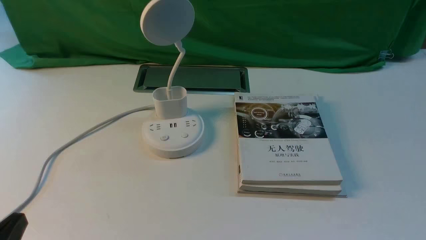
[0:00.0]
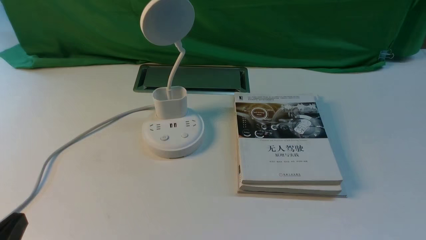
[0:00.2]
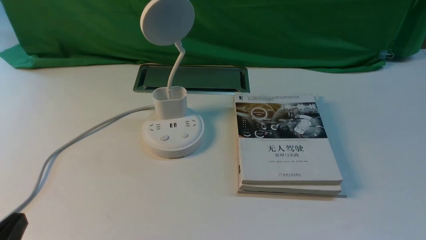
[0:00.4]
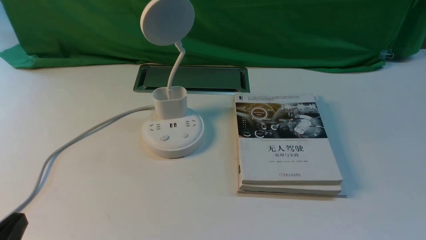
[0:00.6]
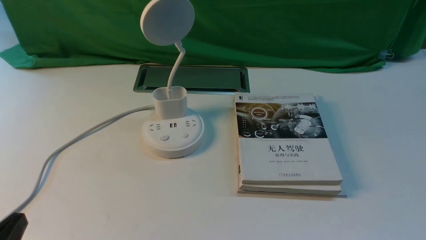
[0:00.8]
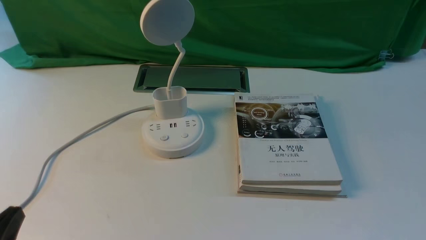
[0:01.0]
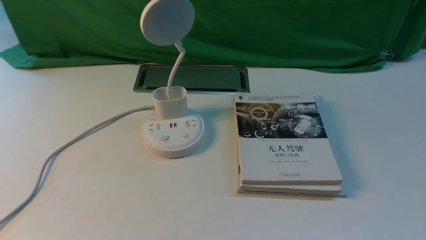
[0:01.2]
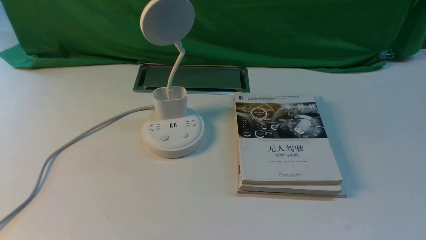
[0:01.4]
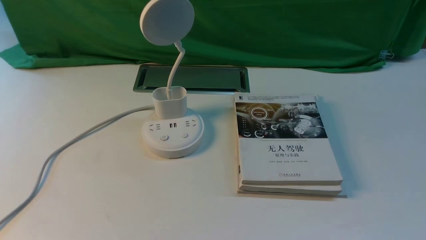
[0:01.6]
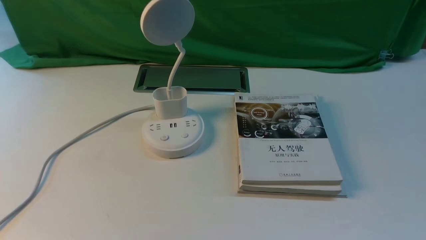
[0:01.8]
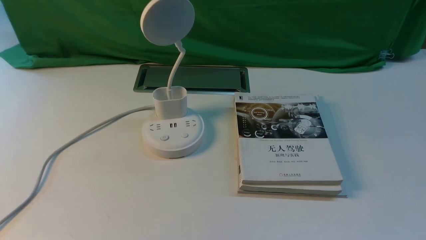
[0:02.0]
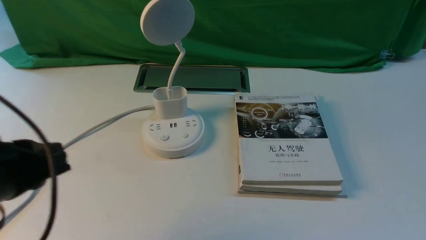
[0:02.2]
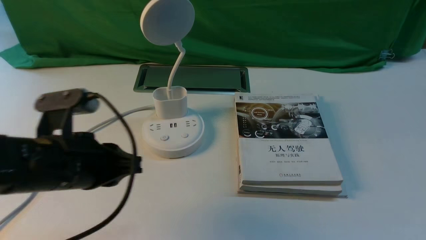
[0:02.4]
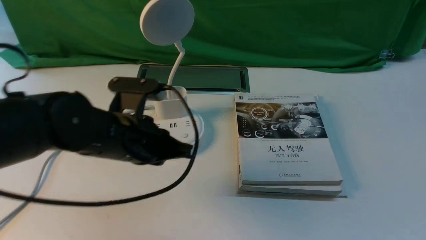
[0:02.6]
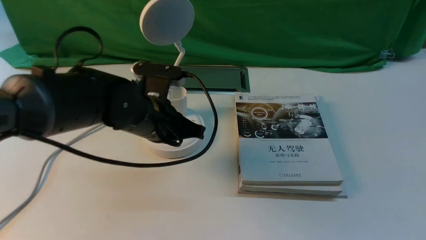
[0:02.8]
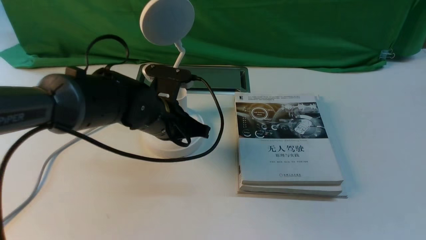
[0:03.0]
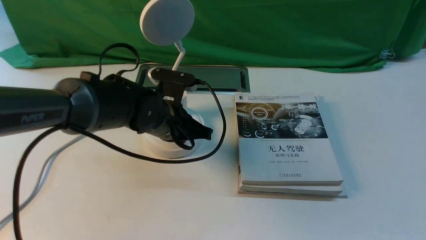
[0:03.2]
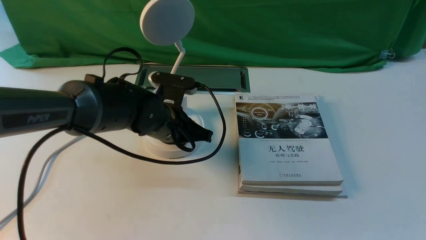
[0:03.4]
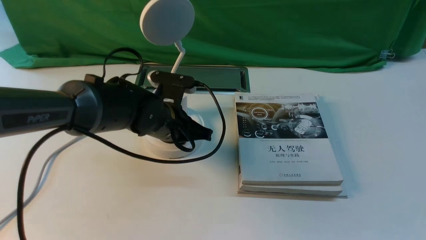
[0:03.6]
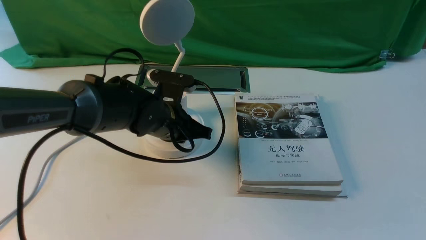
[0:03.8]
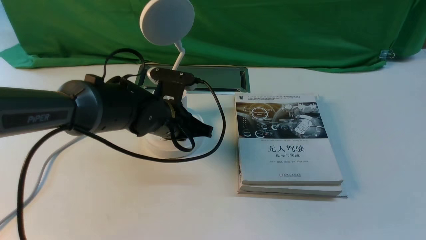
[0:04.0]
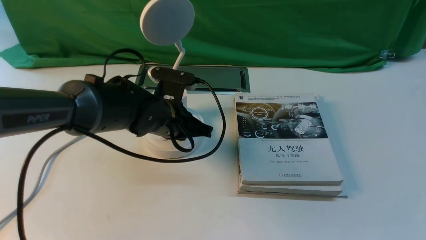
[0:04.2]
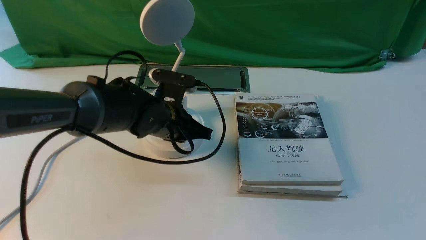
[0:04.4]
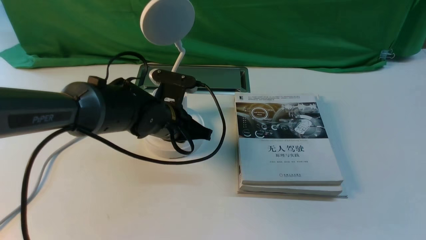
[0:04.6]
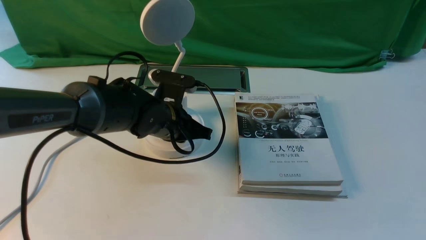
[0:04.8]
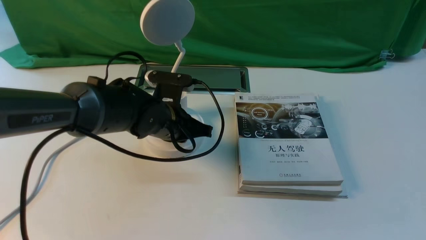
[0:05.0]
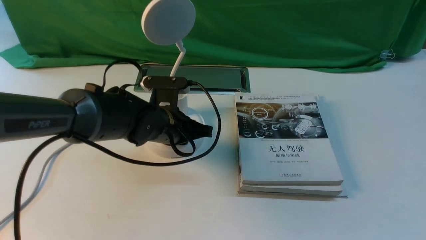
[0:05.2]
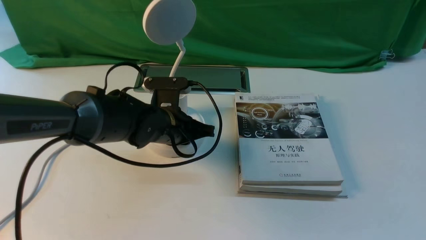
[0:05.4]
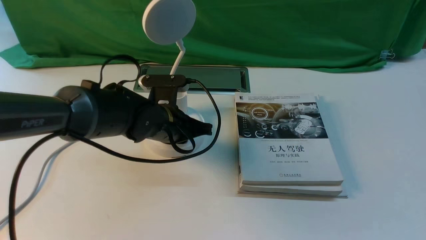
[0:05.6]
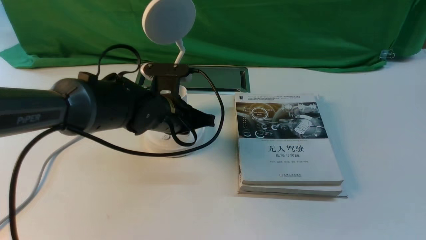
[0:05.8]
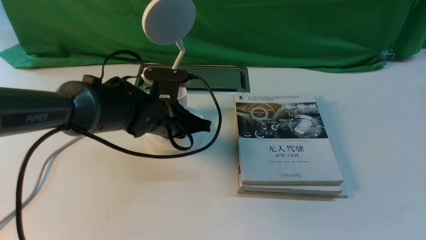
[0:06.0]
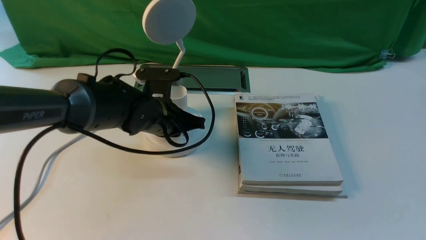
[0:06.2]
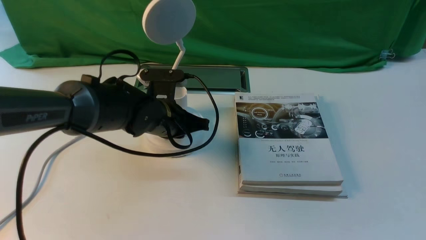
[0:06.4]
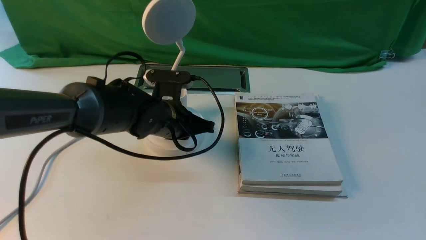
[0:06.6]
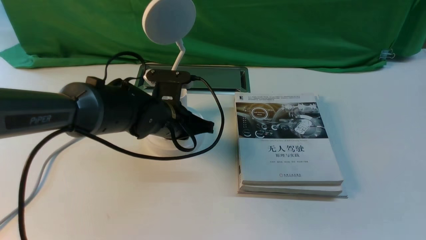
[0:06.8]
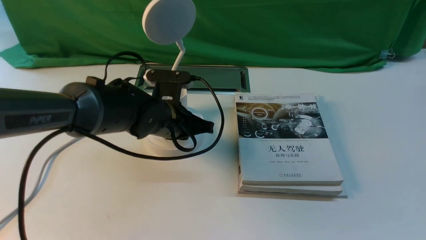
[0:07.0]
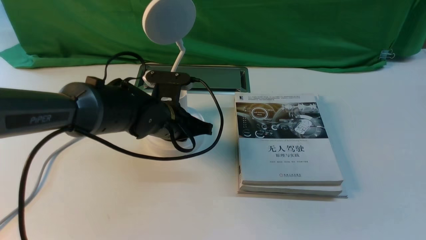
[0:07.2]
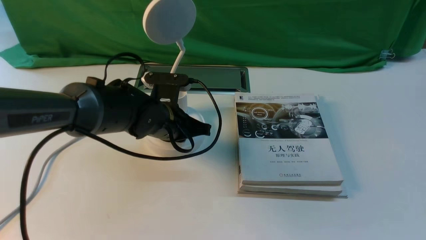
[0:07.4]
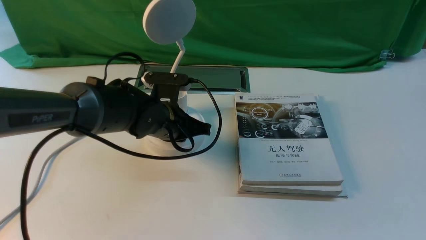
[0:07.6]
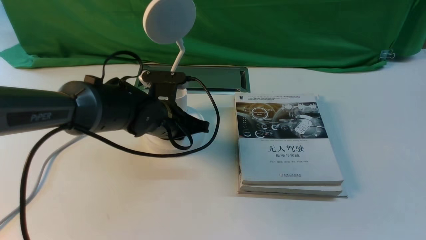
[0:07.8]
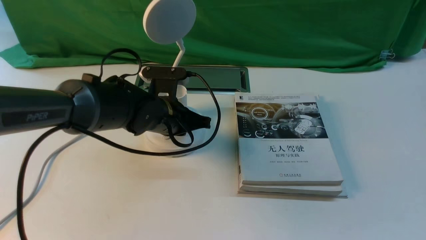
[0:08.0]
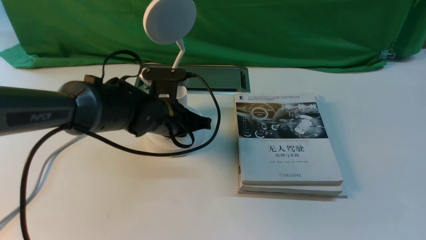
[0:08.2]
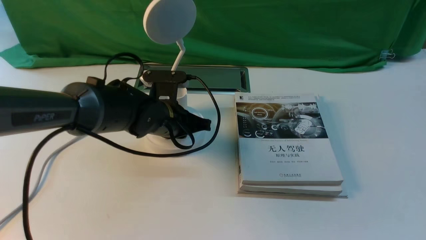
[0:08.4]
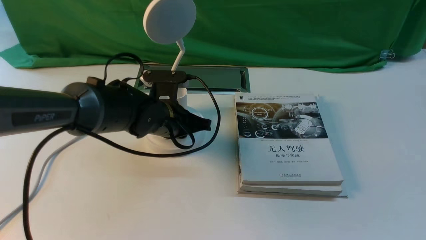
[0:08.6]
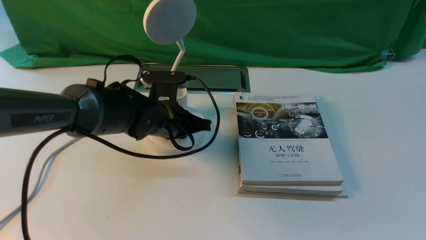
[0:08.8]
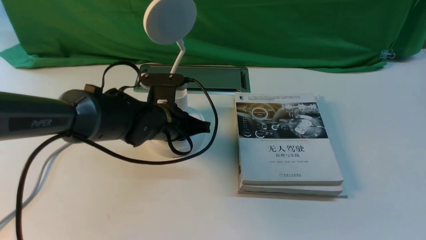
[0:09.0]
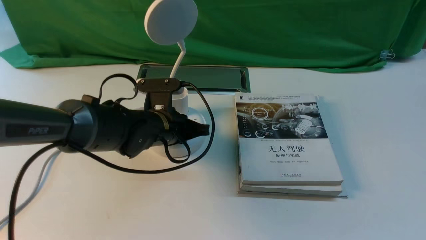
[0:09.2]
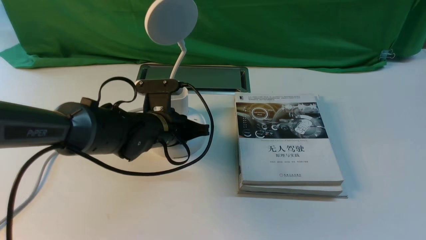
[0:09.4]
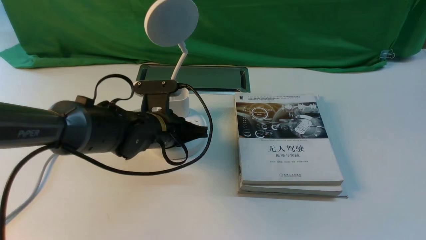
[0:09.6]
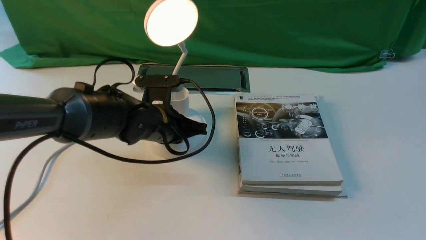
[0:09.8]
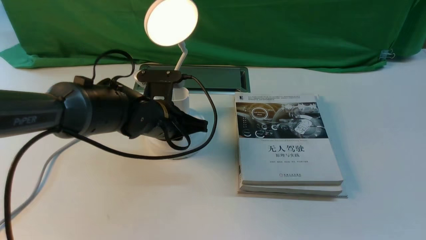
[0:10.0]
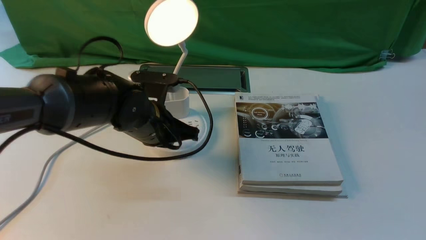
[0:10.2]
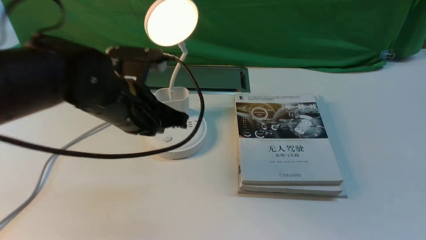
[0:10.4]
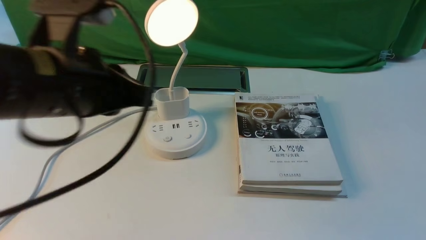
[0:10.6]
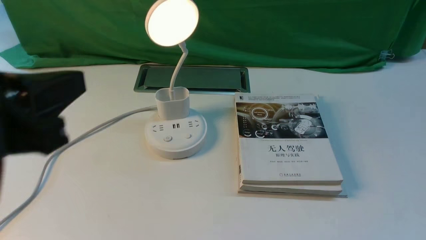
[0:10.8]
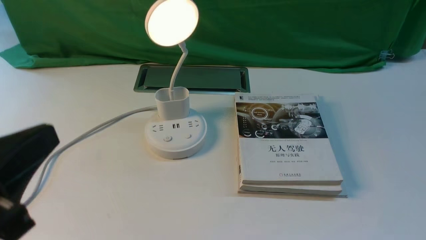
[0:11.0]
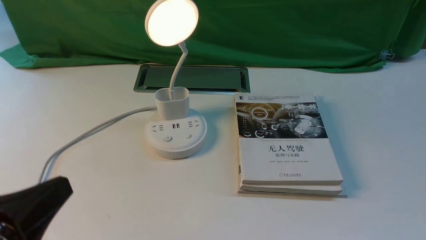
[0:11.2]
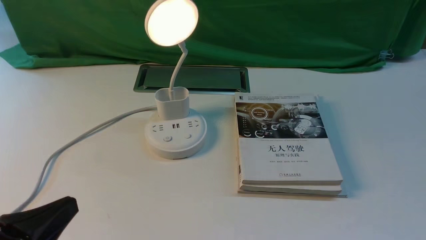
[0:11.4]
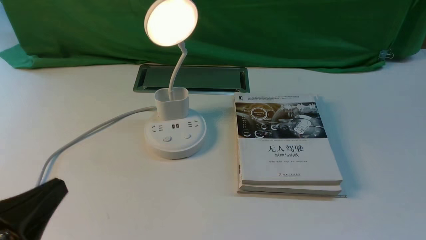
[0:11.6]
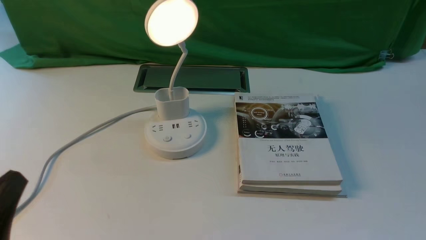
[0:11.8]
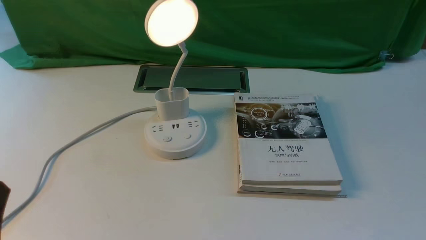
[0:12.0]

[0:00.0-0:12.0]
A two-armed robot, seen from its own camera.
Step, 0:00.0 to 0:10.4: use the left arm to press the button switch on the lamp holder.
0:00.0 to 0:01.6: The left gripper is displaced upward by some 10 cm.
0:01.6 to 0:03.0: The left gripper shifts roughly 35 cm forward and to the right, and closes up.
0:03.0 to 0:06.0: There are only small adjustments of the grippers.
0:06.0 to 0:07.6: The two grippers keep their place.
0:07.6 to 0:09.0: There are only small adjustments of the grippers.
0:09.0 to 0:10.4: The left gripper is displaced upward and backward by roughly 15 cm.
0:10.4 to 0:12.0: The left gripper is displaced backward and to the left by roughly 25 cm.

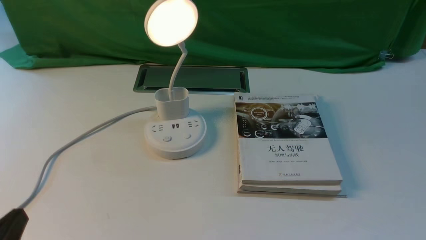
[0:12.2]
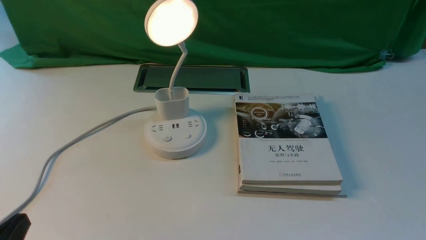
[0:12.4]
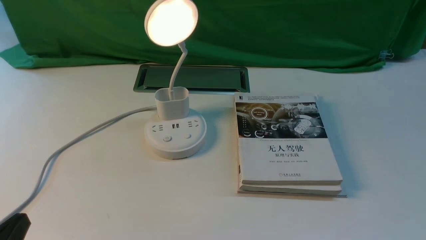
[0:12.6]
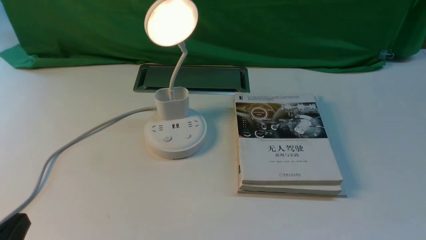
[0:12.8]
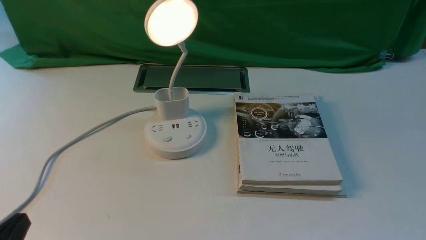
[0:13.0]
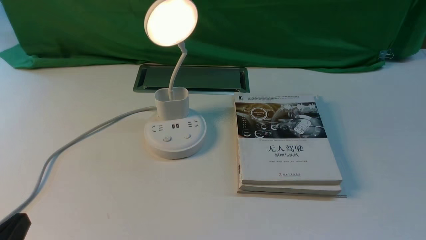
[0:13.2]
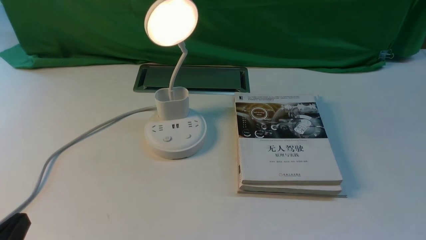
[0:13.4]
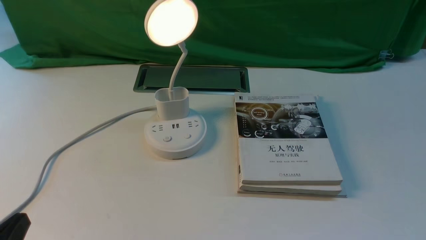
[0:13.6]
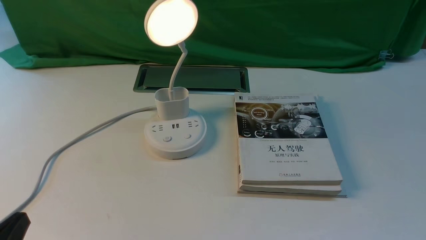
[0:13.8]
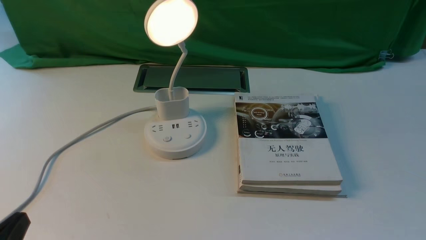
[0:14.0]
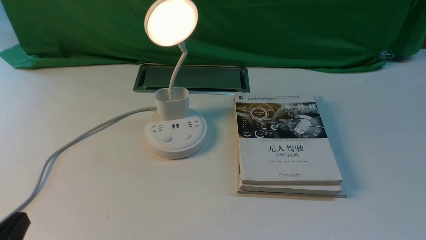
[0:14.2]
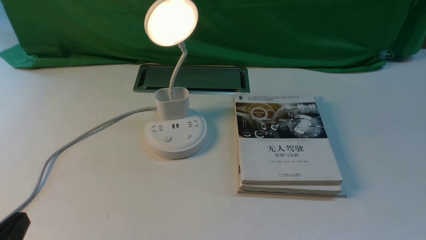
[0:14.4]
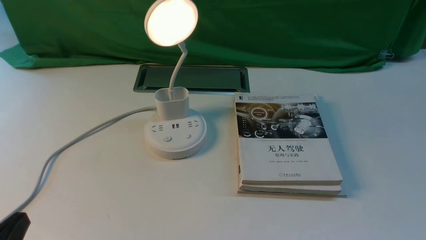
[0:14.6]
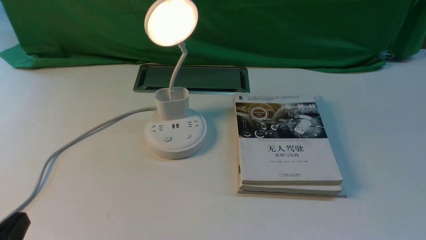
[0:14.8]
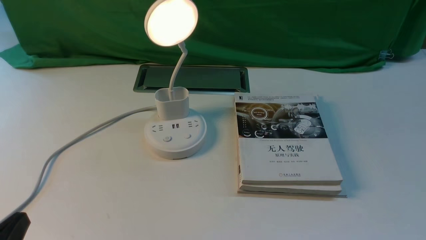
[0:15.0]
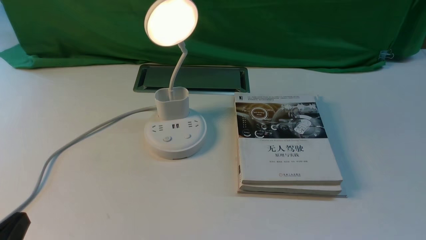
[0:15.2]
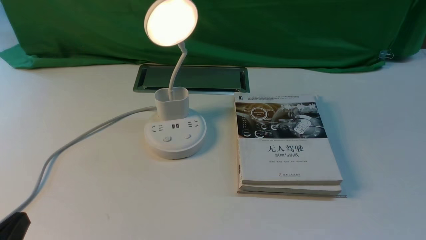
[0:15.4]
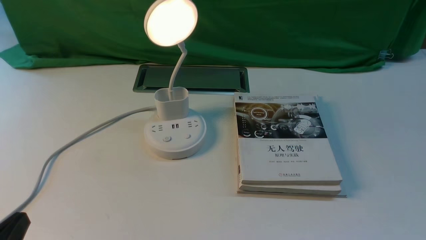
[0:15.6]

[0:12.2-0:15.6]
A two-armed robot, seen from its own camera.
0:12.2 to 0:15.6: Both grippers stay put.

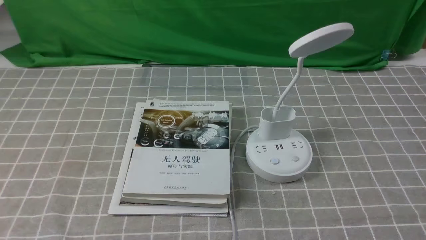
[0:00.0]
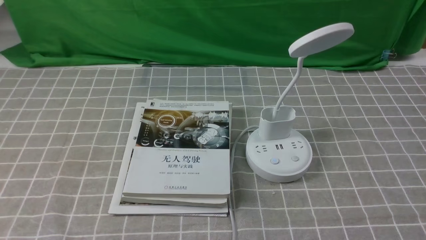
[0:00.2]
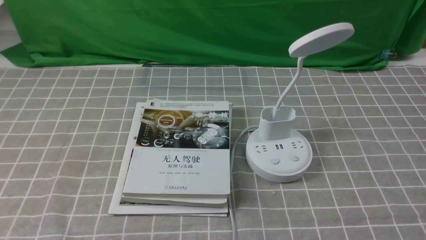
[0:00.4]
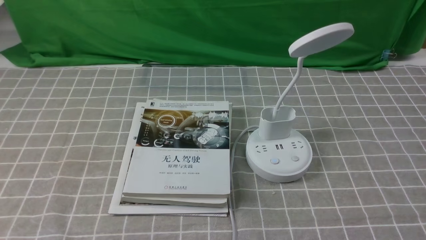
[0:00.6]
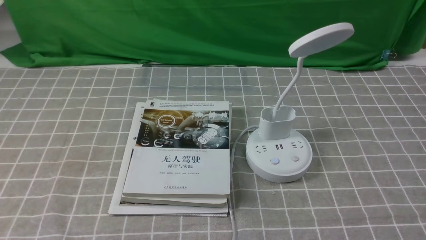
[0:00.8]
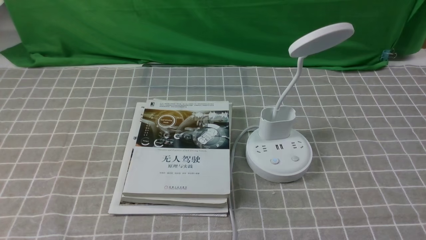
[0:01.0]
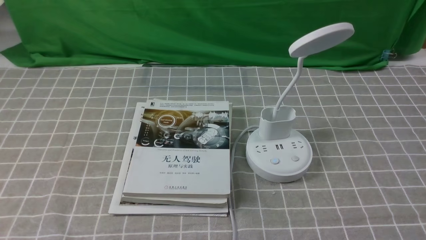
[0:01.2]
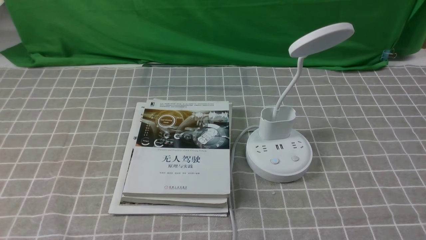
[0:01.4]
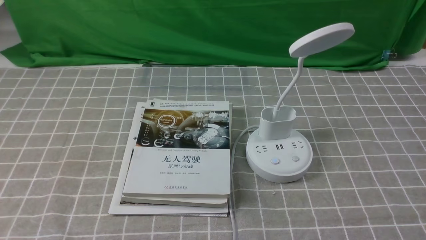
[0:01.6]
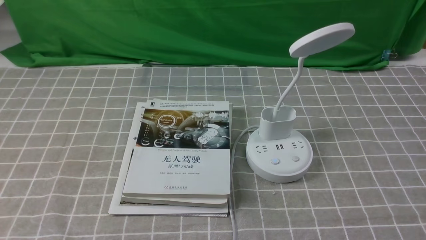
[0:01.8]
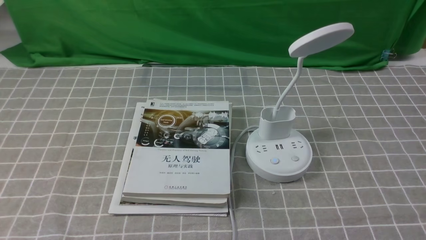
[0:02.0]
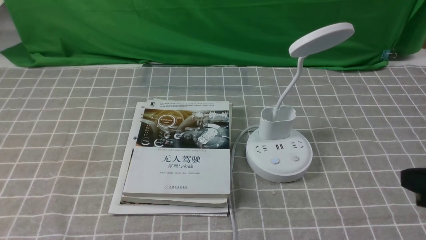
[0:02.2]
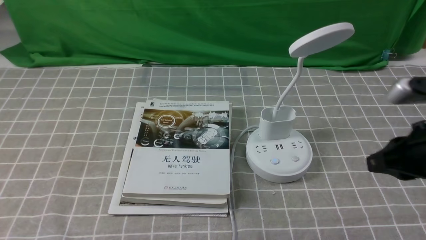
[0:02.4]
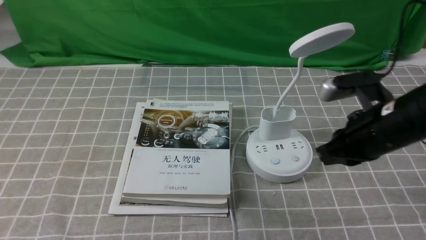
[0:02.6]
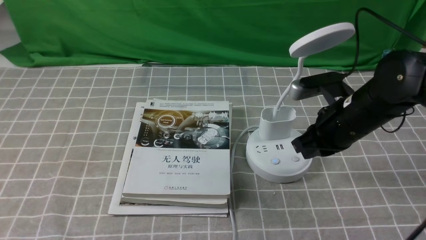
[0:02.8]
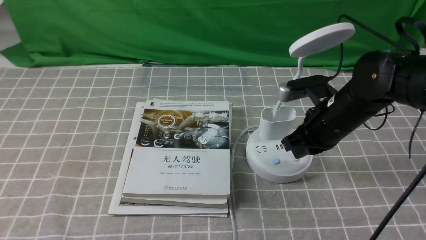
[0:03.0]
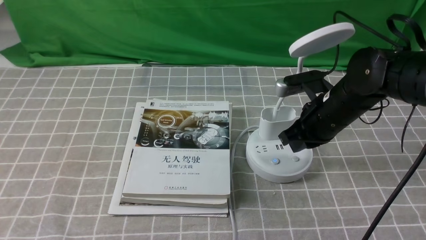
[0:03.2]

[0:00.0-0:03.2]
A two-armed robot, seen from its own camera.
0:01.6 to 0:03.2: The right gripper travels forward and to the left by roughly 35 cm, and closes.
